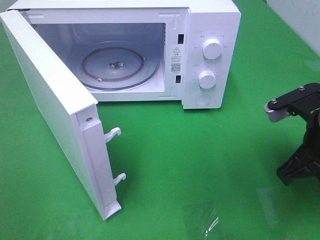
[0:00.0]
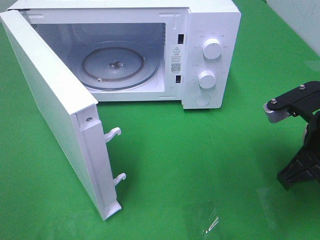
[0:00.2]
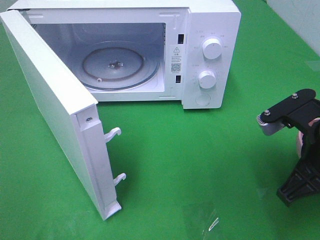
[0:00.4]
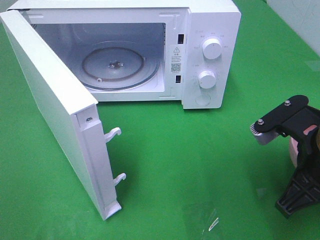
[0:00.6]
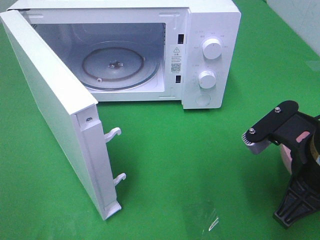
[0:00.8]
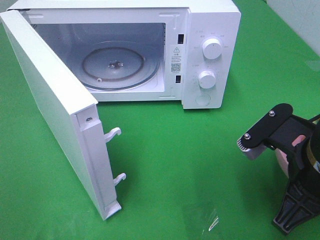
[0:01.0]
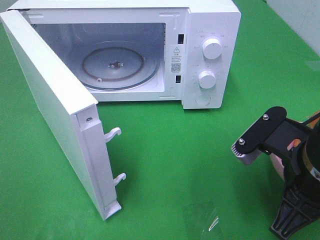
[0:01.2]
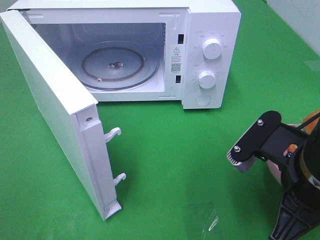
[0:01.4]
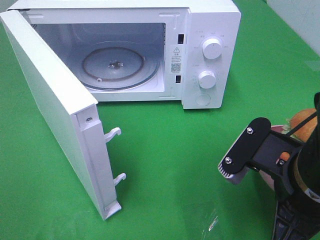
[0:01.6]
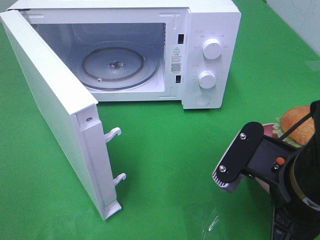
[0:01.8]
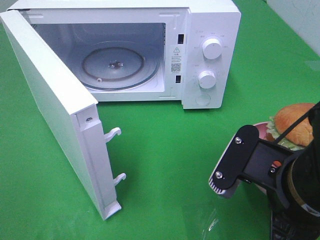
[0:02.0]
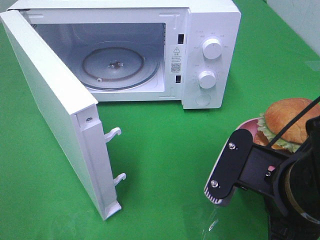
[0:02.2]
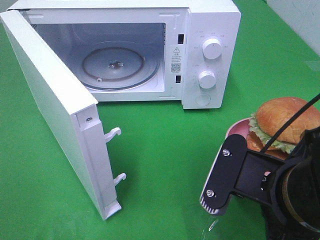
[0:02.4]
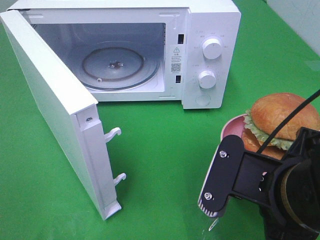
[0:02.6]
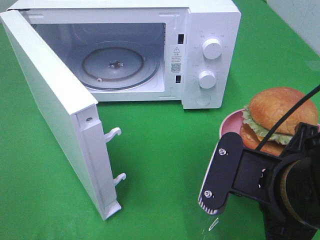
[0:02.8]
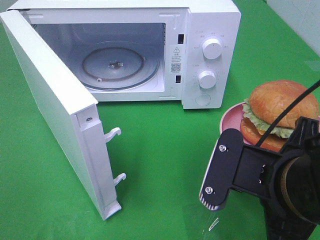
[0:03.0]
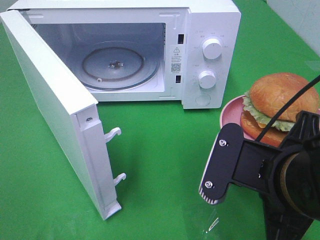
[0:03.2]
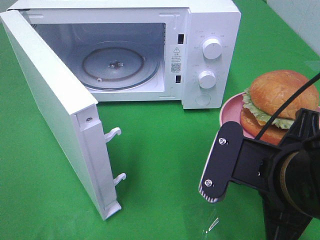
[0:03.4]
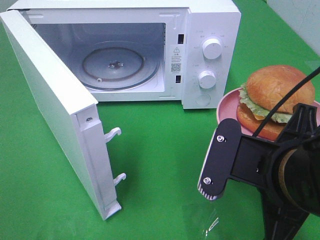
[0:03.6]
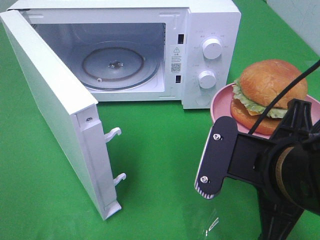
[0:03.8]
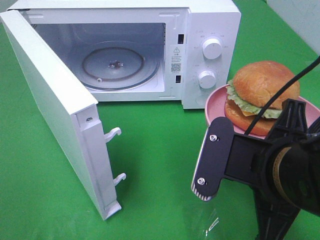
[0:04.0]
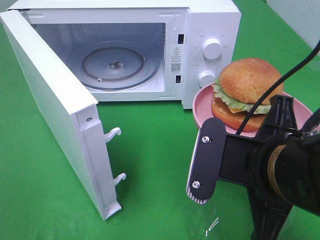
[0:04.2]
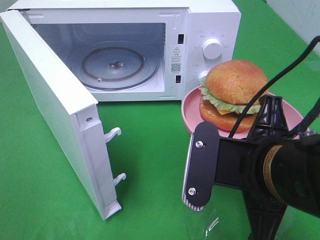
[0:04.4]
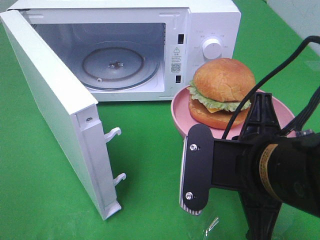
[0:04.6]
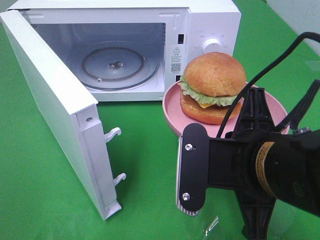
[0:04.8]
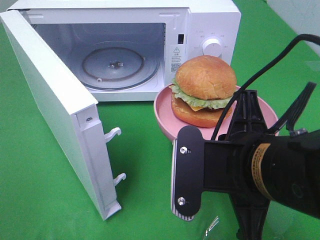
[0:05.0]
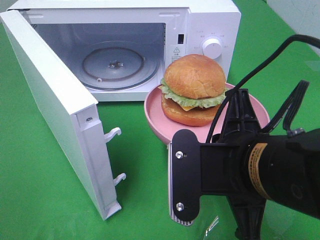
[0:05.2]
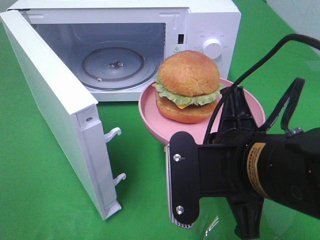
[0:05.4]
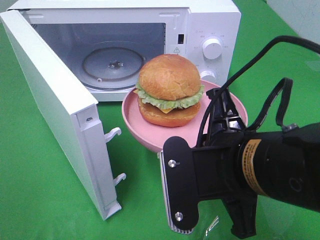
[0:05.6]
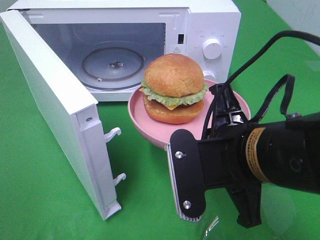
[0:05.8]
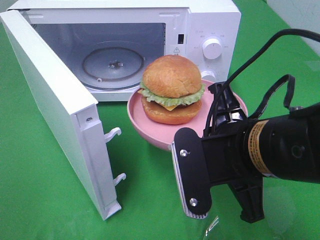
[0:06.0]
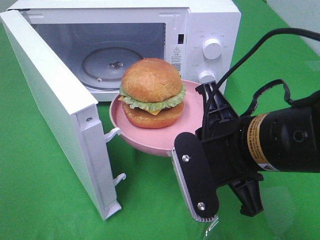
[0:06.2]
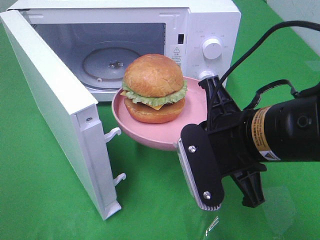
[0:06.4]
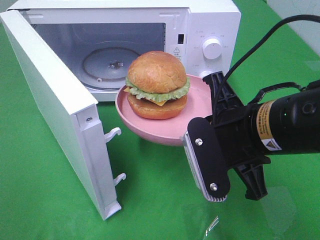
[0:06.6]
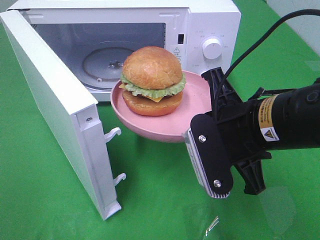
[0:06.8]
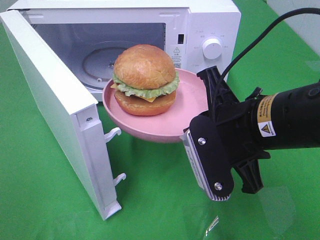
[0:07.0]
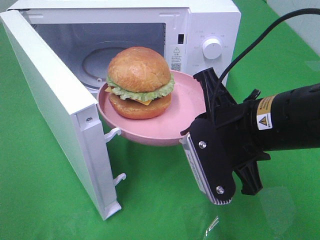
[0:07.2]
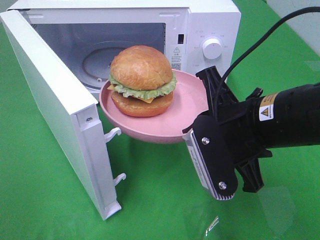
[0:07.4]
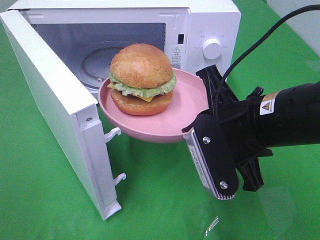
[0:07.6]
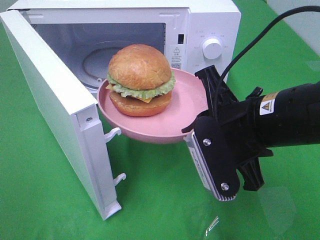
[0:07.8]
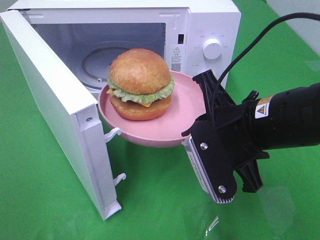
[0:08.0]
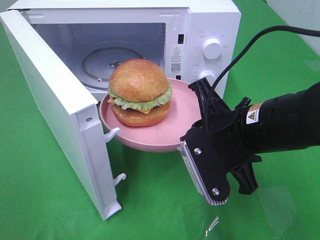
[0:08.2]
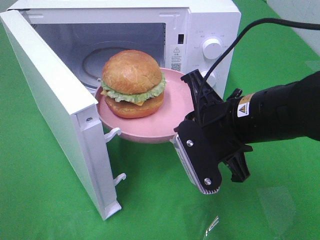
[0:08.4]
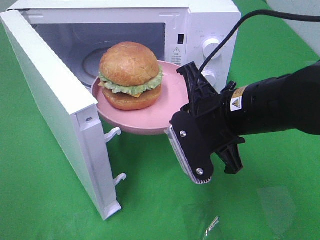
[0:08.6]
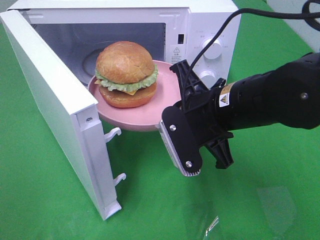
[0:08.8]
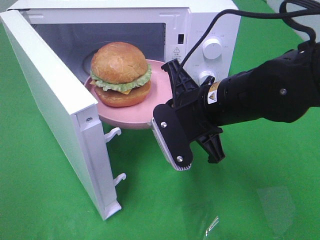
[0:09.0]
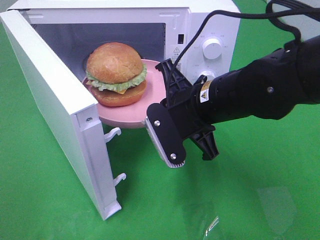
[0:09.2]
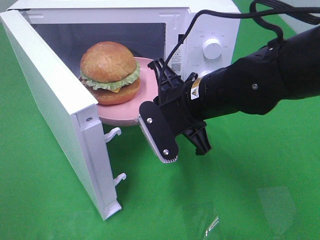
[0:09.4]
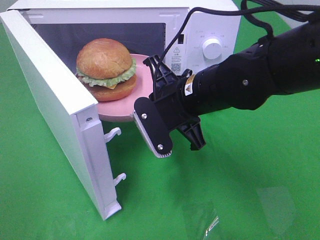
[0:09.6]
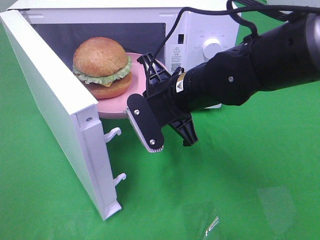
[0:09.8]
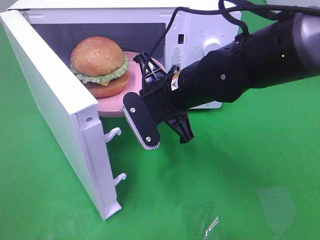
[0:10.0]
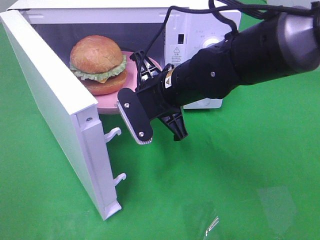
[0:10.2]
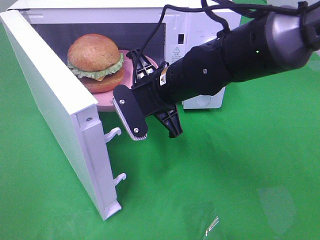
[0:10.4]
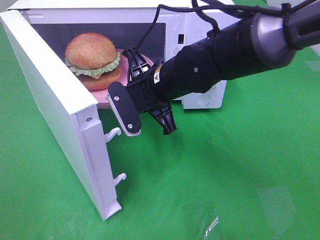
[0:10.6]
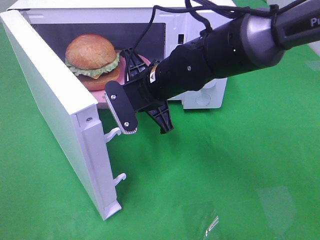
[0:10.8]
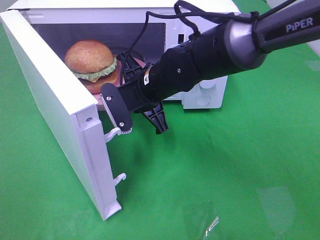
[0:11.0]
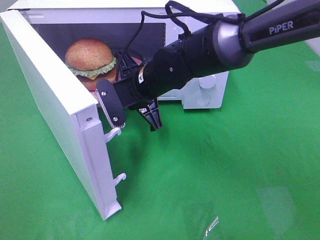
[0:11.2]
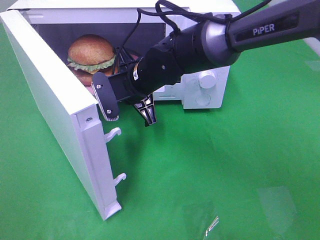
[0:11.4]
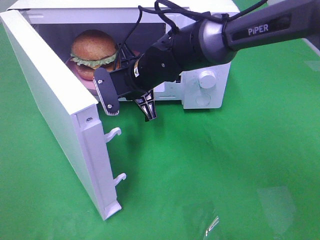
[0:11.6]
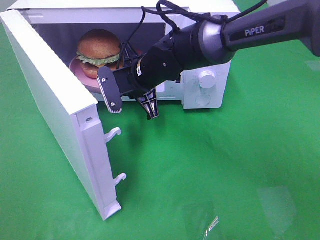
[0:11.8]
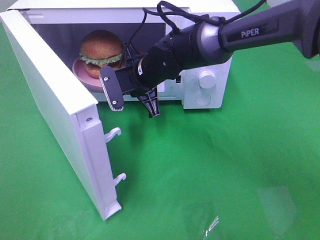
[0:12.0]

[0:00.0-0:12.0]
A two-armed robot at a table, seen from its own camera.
Task of the whole recording: Heat the burger.
0:00.0 to 0:01.6: The right gripper moves backward and to the left, roughly 10 cm.
0:03.0 to 0:04.4: The grippers make only small movements.
0:07.6 to 0:09.0: The right gripper goes about 5 cm forward.
0:09.0 to 0:10.4: The right gripper shifts approximately 10 cm forward and to the left.
0:10.4 to 0:12.0: The right gripper shifts approximately 10 cm forward.

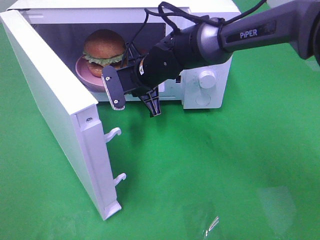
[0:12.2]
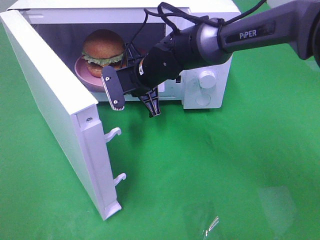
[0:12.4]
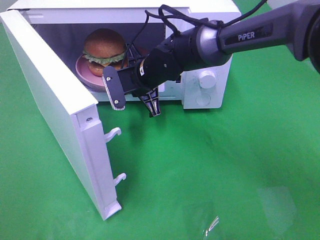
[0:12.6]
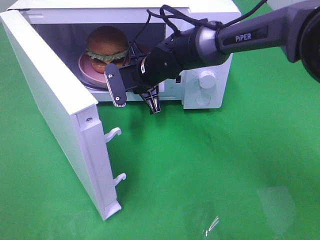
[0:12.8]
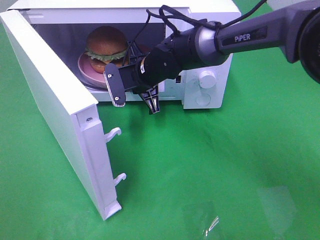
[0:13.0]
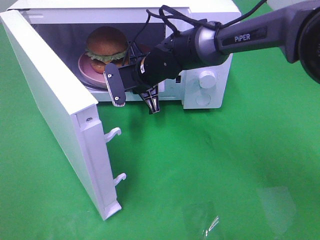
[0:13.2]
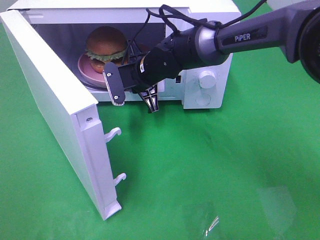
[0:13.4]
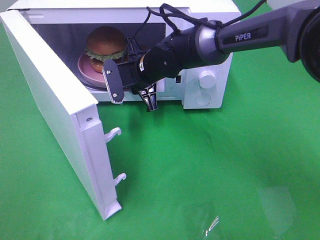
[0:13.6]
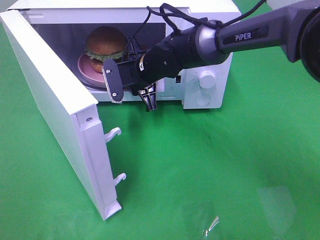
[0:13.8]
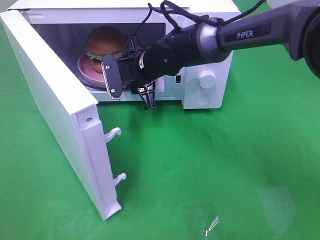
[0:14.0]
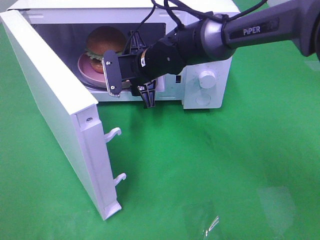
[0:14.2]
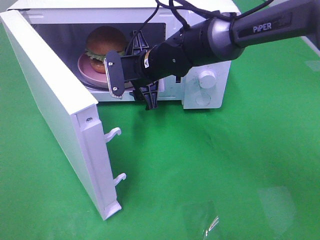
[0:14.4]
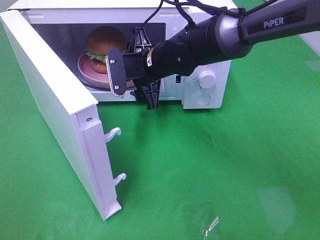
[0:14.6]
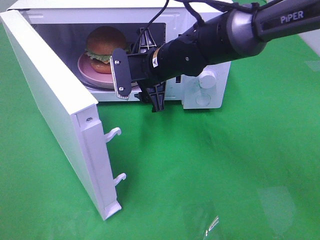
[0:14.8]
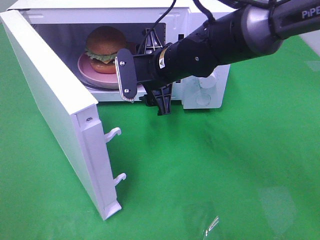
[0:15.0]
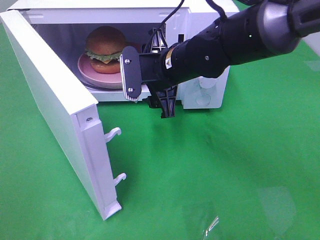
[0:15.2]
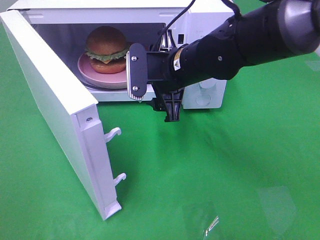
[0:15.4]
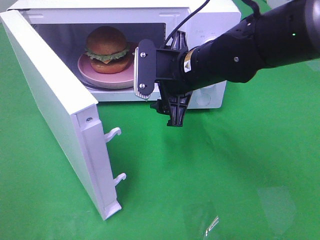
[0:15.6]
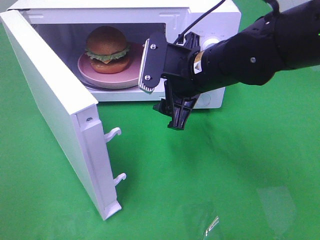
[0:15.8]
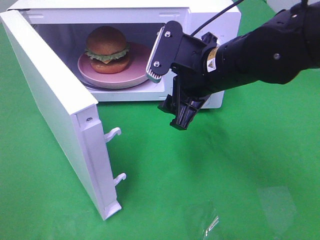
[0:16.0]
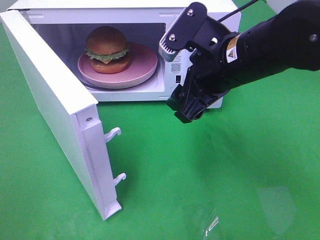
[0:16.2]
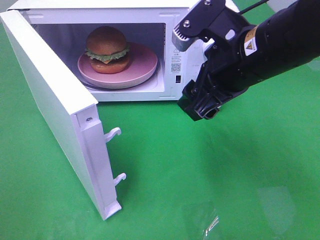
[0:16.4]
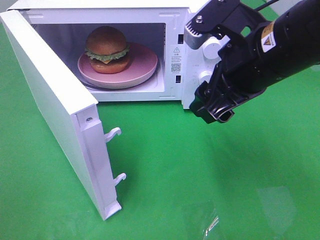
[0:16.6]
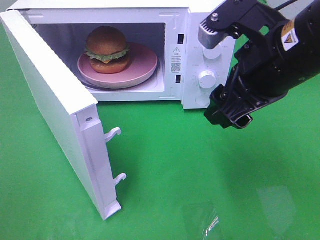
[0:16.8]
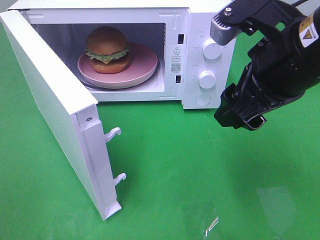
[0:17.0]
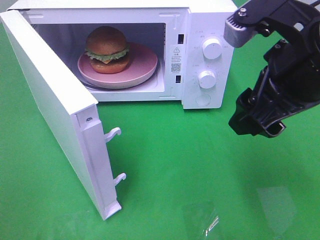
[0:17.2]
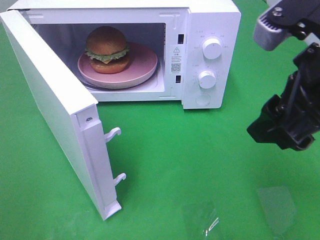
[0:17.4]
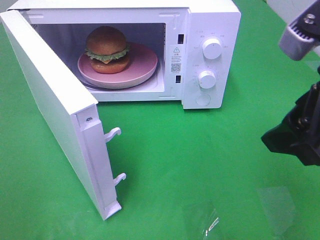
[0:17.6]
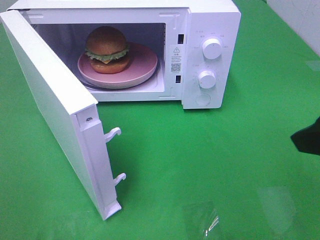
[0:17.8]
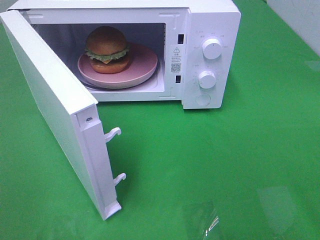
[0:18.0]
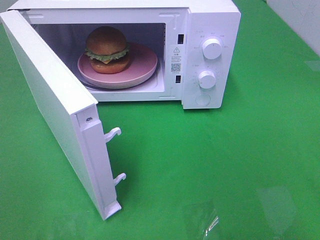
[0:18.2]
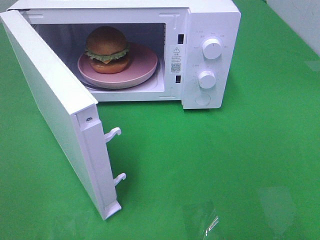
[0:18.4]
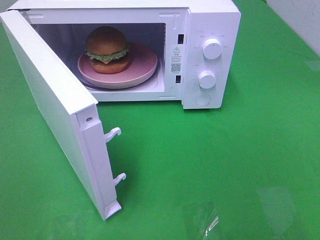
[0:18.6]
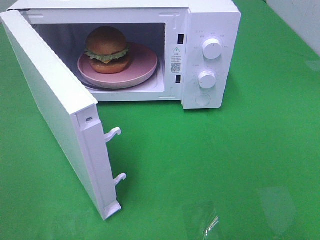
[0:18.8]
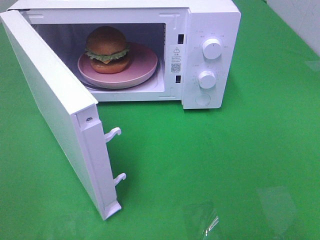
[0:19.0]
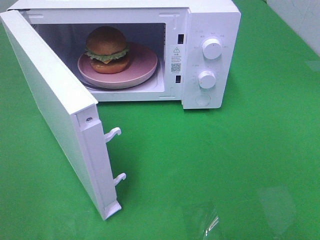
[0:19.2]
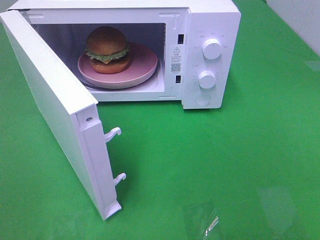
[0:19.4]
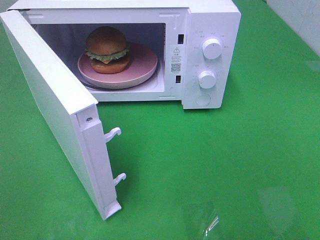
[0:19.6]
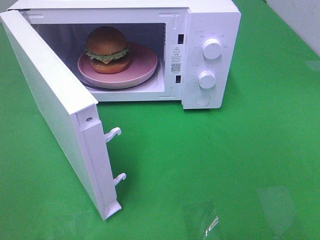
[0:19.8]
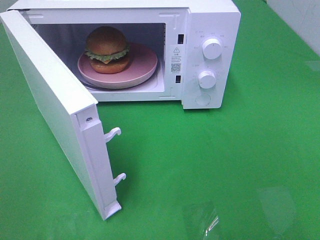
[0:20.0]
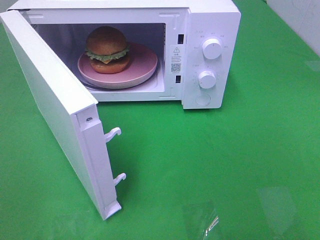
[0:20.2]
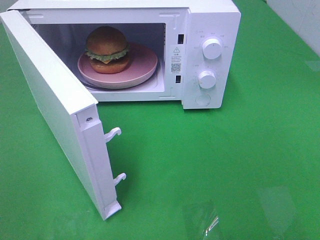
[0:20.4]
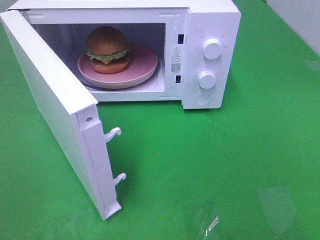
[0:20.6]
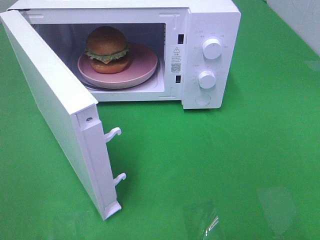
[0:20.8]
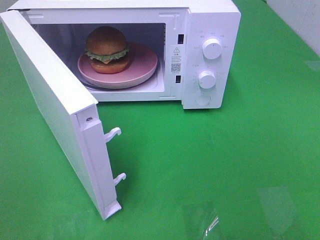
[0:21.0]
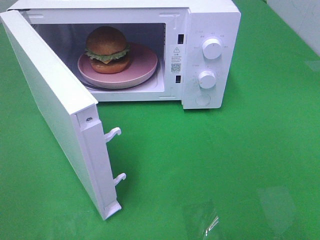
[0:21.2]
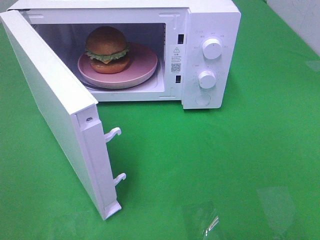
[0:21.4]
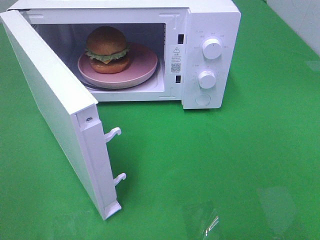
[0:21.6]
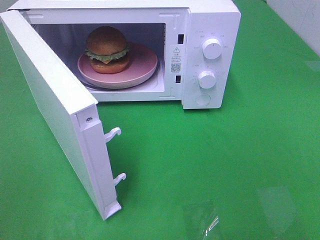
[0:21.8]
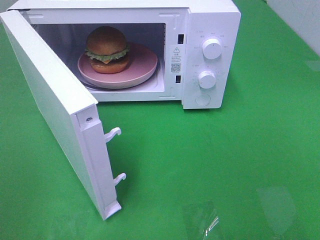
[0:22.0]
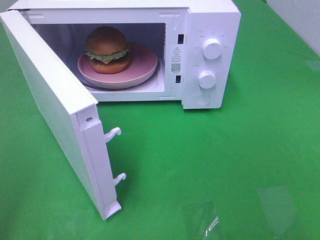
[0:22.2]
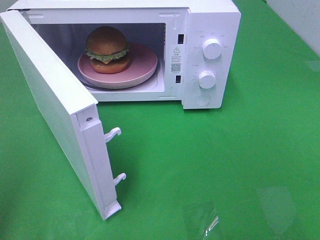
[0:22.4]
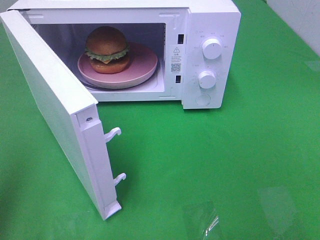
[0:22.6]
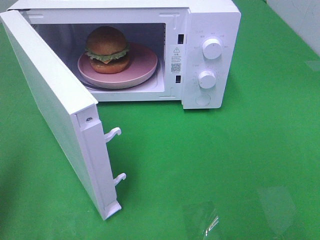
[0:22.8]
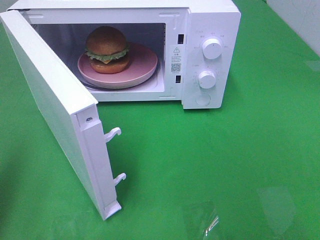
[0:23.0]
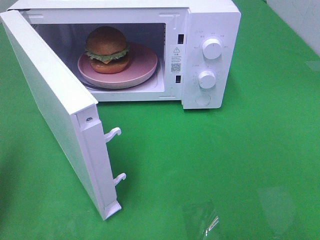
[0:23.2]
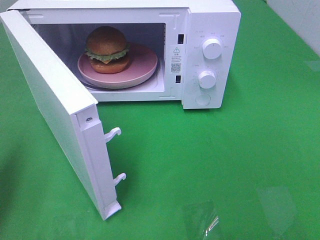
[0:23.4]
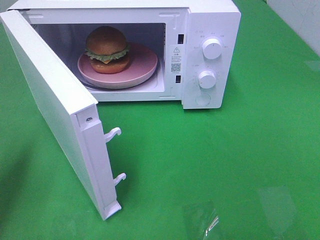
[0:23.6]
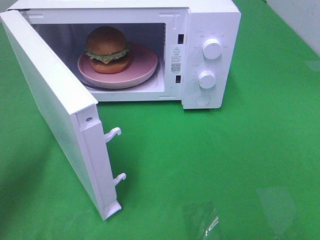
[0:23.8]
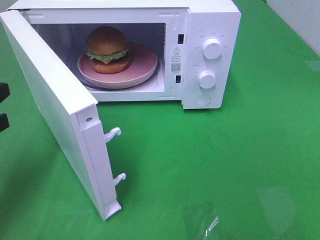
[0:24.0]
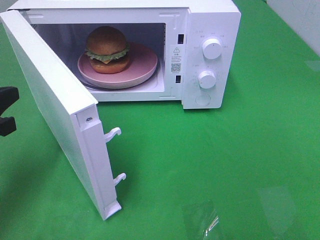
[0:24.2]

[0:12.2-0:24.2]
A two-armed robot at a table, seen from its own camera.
Task of the whole recording: Heat the burger.
Step, 0:12.2 to 0:14.2: Right hand: place the plate in the microwave.
0:12.2 to 0:13.8: The grippers stay close to where they were, moving slightly.
0:13.8 to 0:15.2: The right gripper goes approximately 5 cm backward, and opens its fingers.
0:15.2 to 0:16.6: The right gripper heads backward, to the right and upward, covering about 15 cm.
0:16.6 to 0:18.2: The right gripper heads to the right and backward, covering about 20 cm.
0:19.8 to 0:21.2: The two grippers keep their place.
0:22.6 to 0:24.2: The left gripper is displaced downward and forward by about 15 cm.
